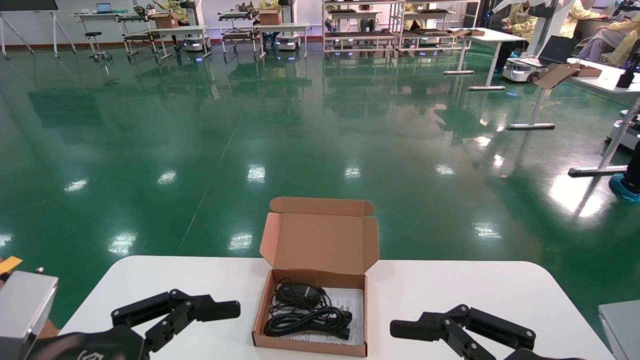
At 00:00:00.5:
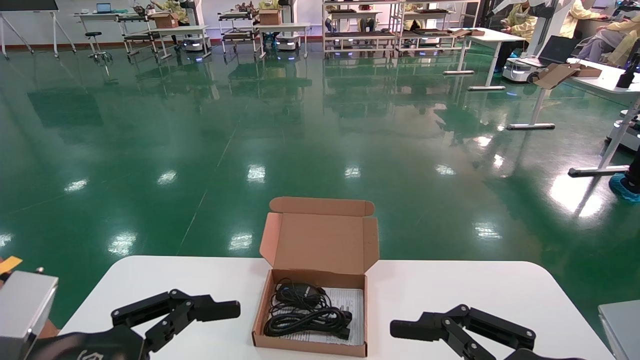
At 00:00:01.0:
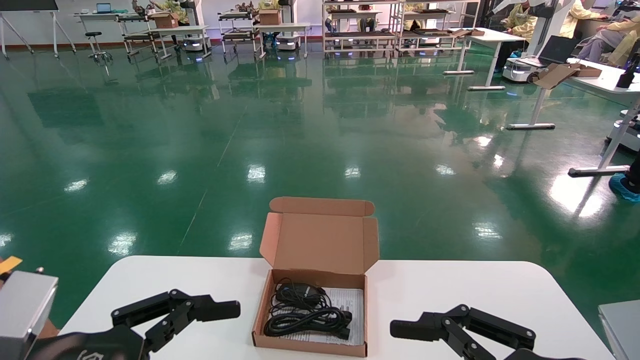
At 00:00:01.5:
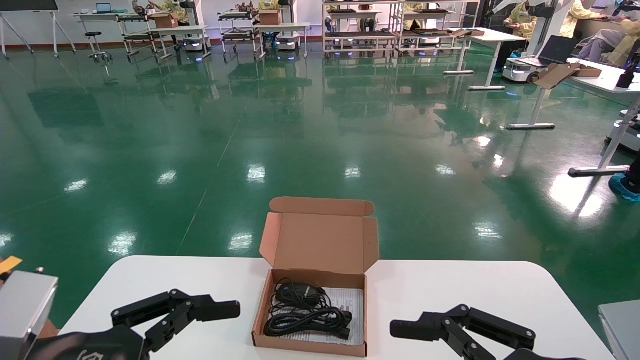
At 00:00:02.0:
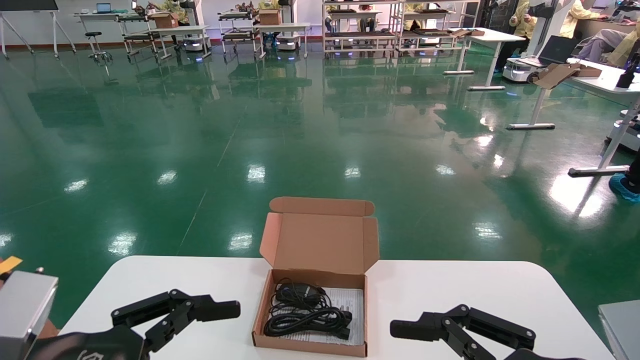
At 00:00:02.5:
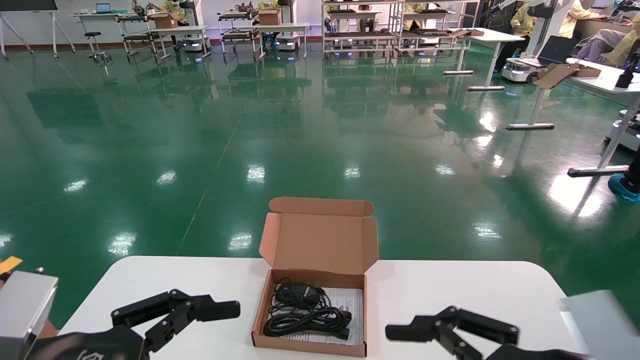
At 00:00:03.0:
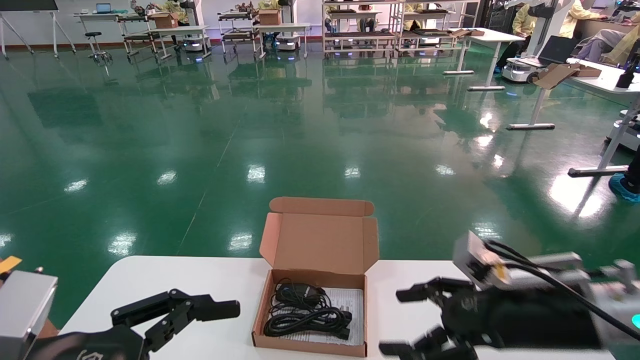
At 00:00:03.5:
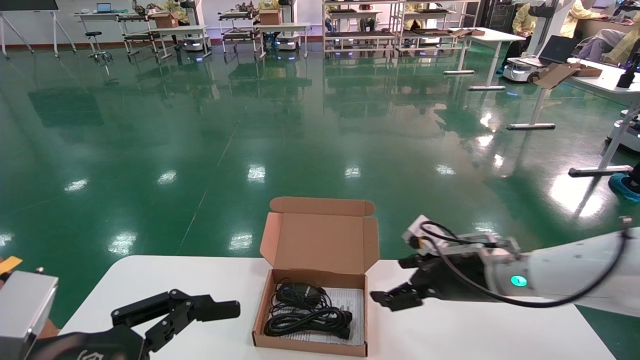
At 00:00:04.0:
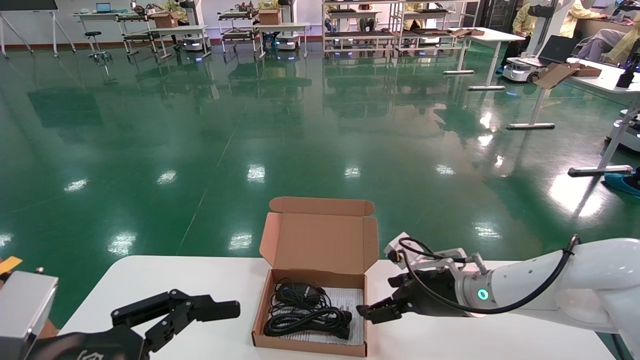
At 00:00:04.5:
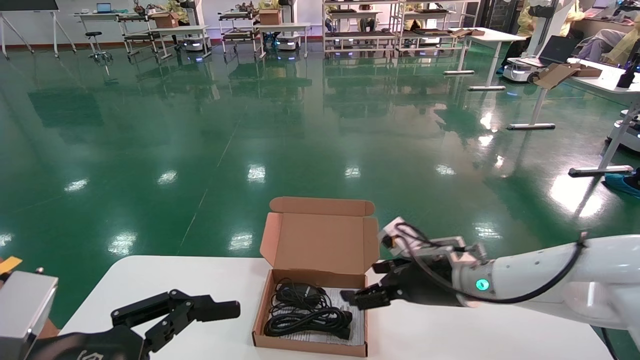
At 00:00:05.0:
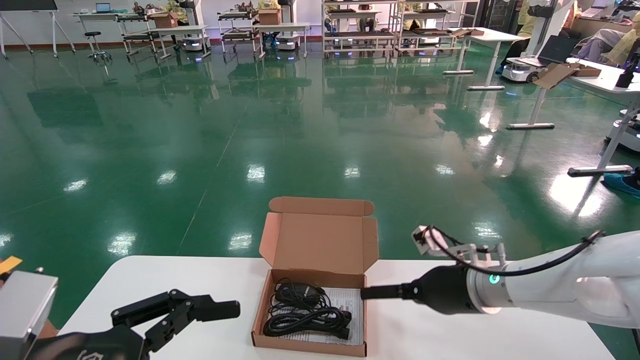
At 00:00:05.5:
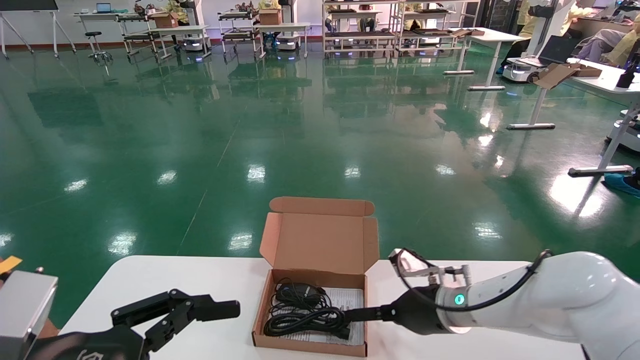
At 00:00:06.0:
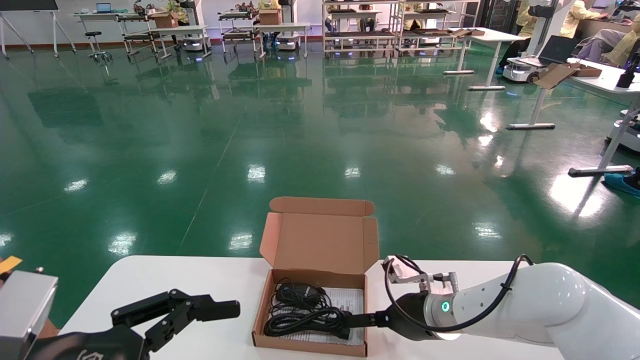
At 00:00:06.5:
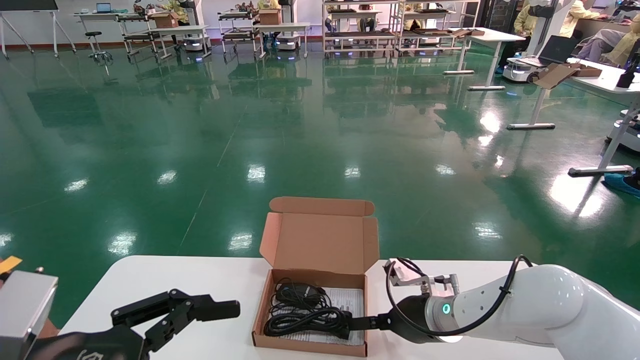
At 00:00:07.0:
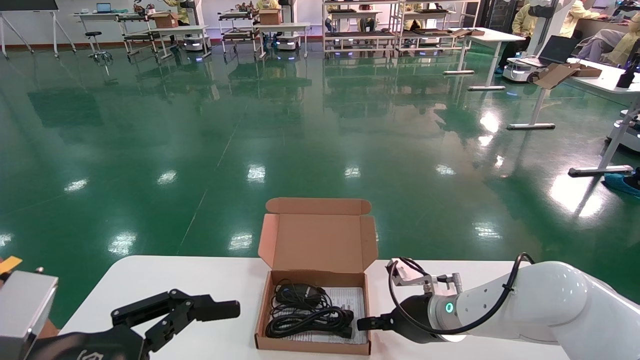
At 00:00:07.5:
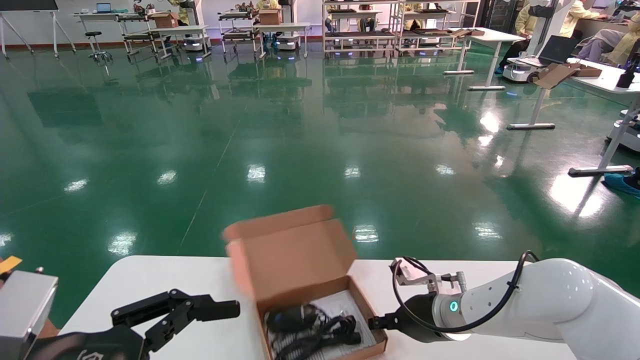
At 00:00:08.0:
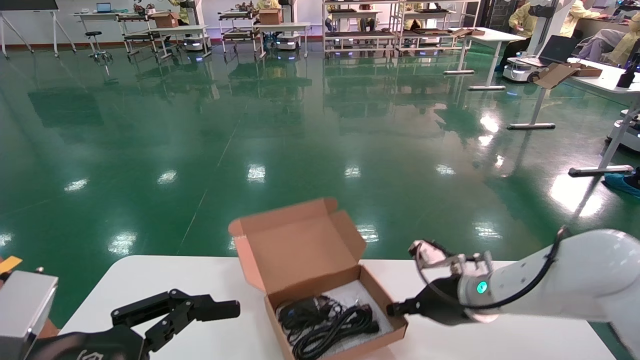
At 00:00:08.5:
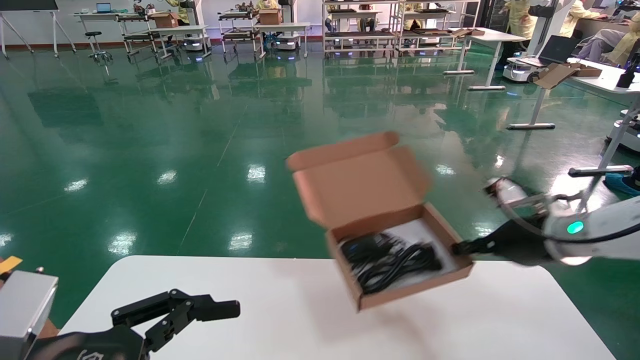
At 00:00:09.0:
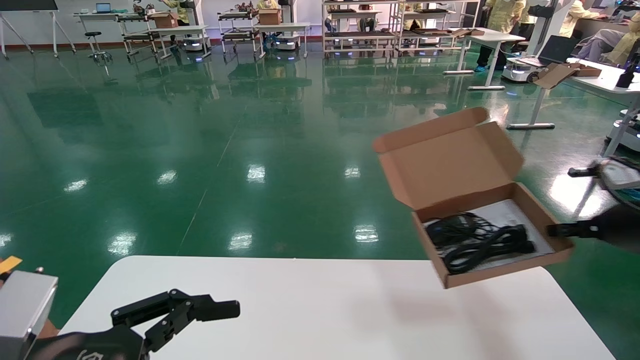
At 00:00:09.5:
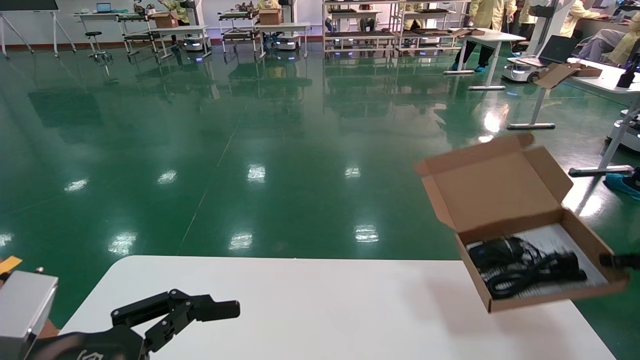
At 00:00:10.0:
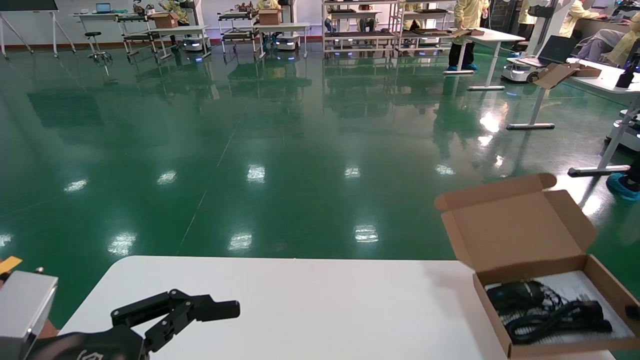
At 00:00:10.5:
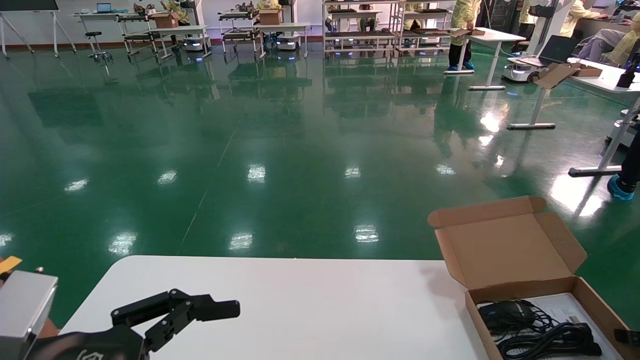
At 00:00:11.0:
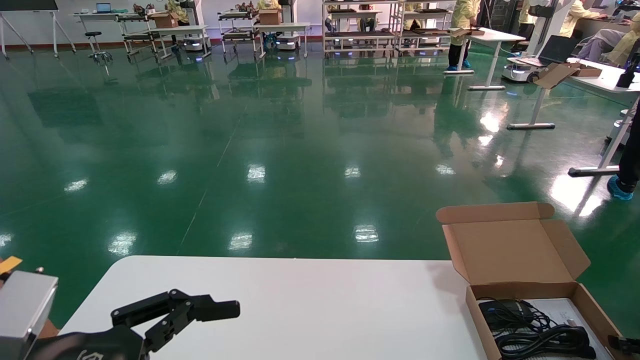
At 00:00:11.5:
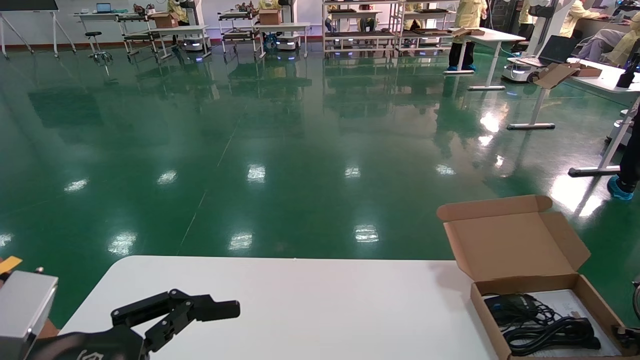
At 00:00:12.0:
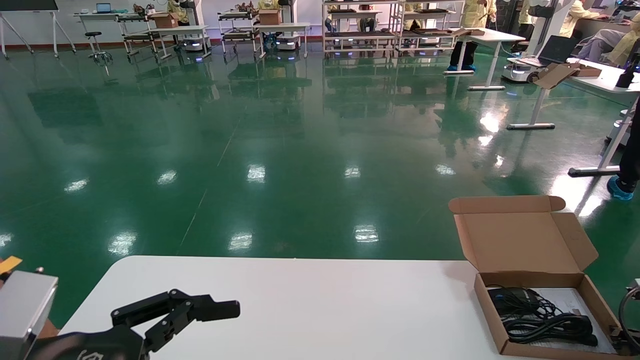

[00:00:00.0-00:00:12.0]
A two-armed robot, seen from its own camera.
Task of the whole recording: move the position of the storage box with accessories on the table.
Step, 00:00:03.0 to 00:00:07.5: Grab and pick up the open mouse box from the accessory packaging area.
00:00:00.0 to 00:00:02.0: Both grippers stay about where they are.
00:00:02.0 to 00:00:04.0: The right gripper travels forward by some 25 cm.
00:00:04.0 to 00:00:06.0: The right gripper is displaced downward by approximately 5 cm.
00:00:06.0 to 00:00:08.0: The right gripper heads to the right, covering roughly 5 cm, and closes its fingers.
00:00:08.0 to 00:00:10.0: The right gripper heads to the right, covering roughly 30 cm.
00:00:10.0 to 00:00:12.0: The right gripper moves downward, roughly 10 cm.

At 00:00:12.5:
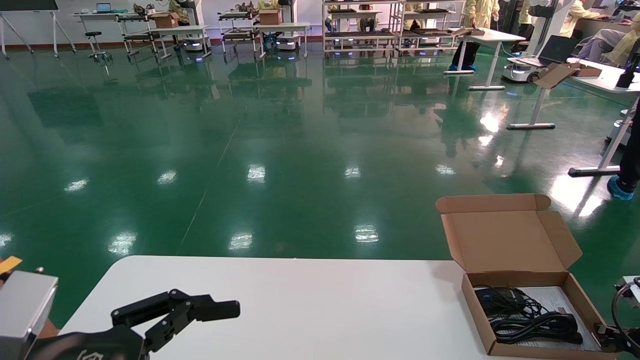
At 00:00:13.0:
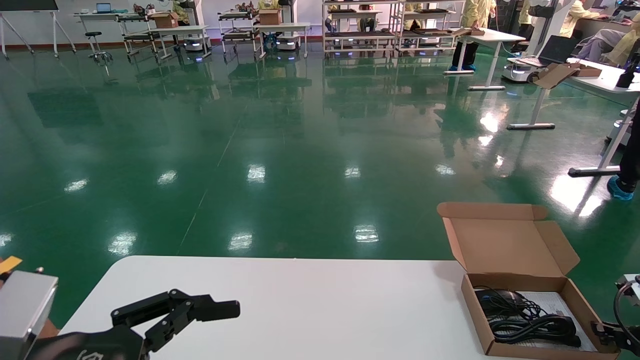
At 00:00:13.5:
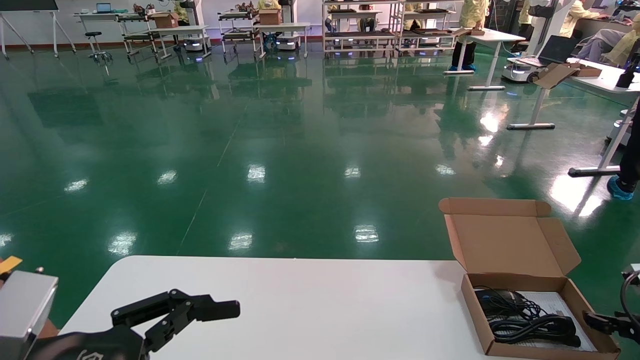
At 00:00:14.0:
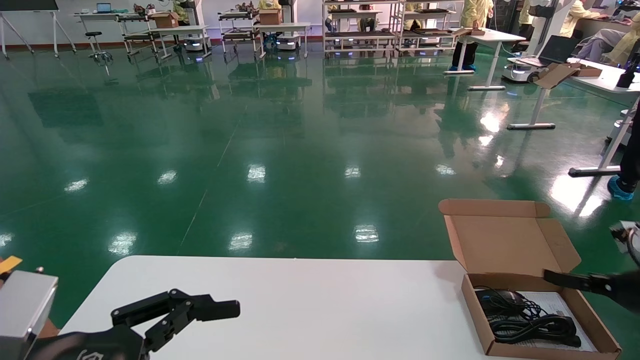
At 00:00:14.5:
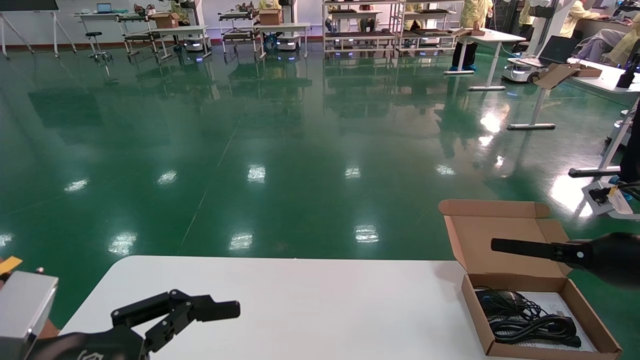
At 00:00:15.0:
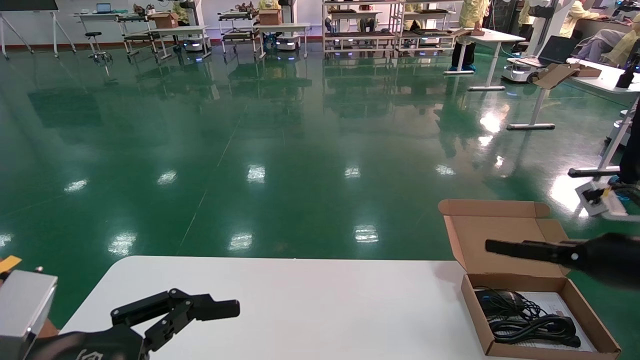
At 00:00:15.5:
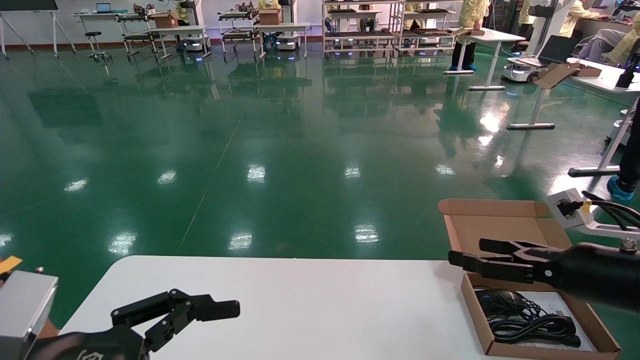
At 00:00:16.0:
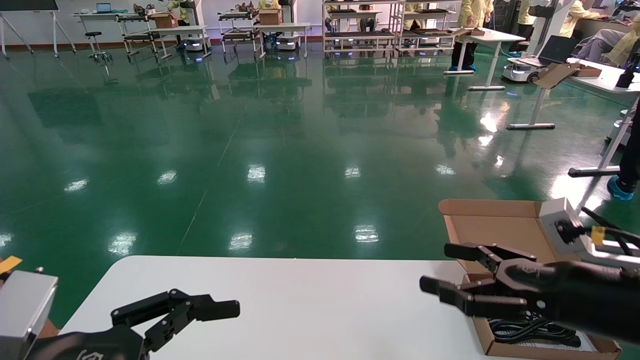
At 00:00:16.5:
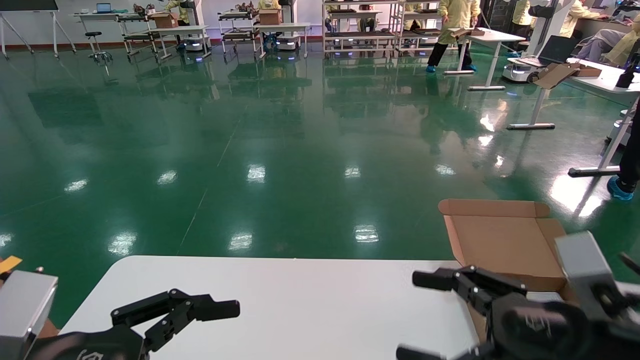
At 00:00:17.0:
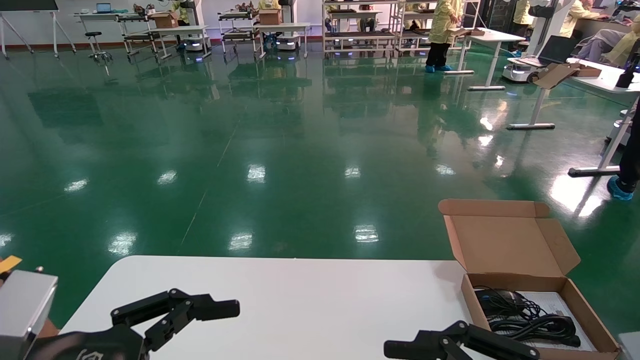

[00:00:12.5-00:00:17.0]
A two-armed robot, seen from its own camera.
Task of the whole recording: move the position of the storage box with accessories on the table.
00:00:12.5 to 00:00:14.5: The right gripper is displaced upward and to the left by some 15 cm, and opens its fingers.
00:00:14.5 to 00:00:17.0: The right gripper is displaced backward and to the left by some 25 cm.
